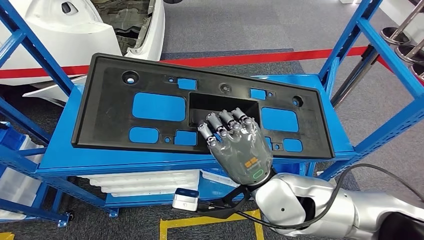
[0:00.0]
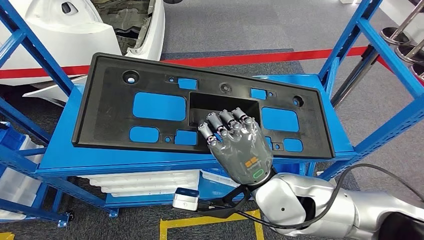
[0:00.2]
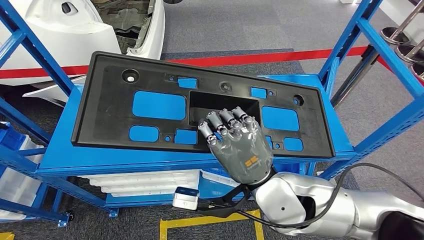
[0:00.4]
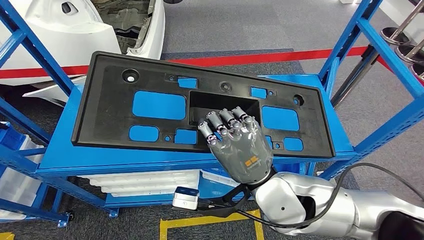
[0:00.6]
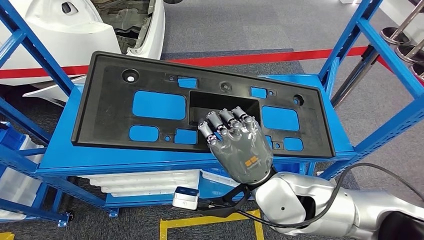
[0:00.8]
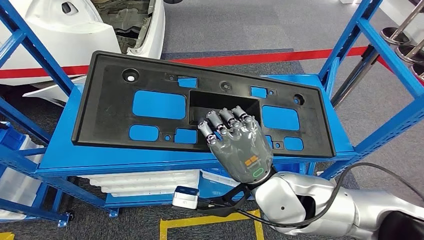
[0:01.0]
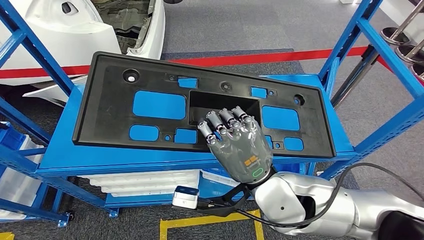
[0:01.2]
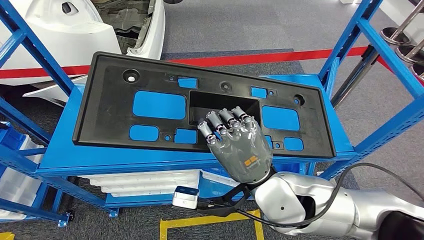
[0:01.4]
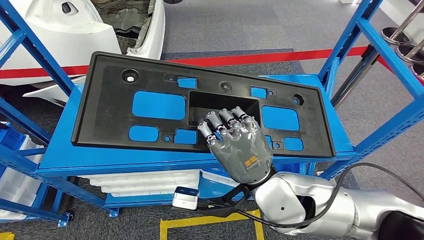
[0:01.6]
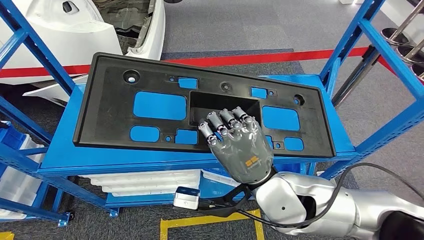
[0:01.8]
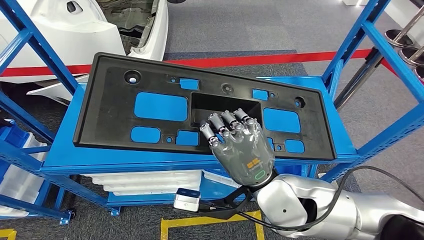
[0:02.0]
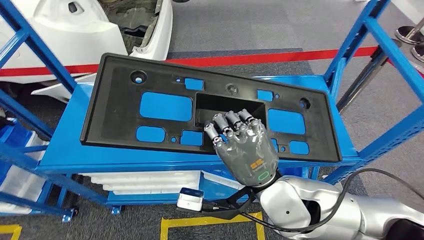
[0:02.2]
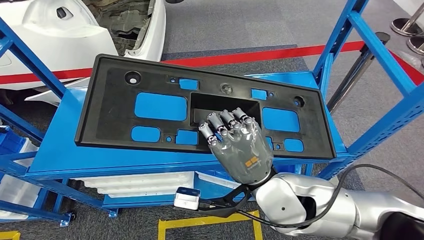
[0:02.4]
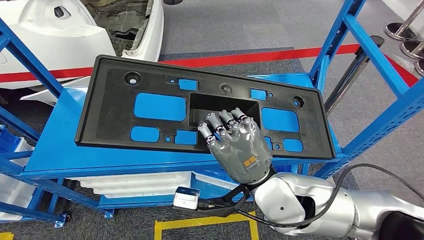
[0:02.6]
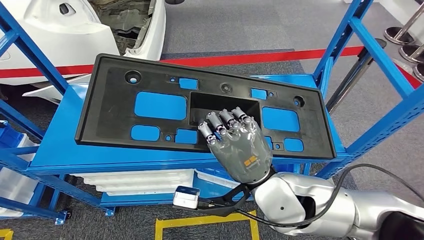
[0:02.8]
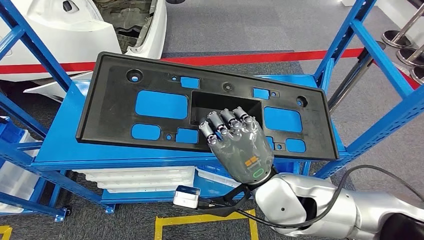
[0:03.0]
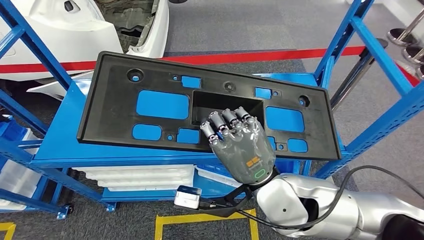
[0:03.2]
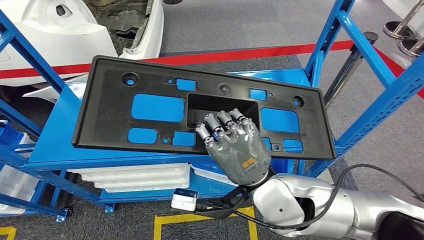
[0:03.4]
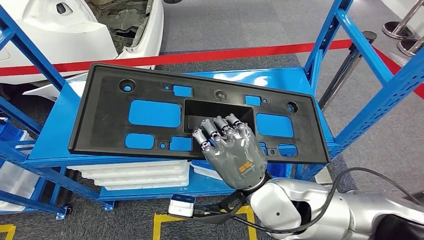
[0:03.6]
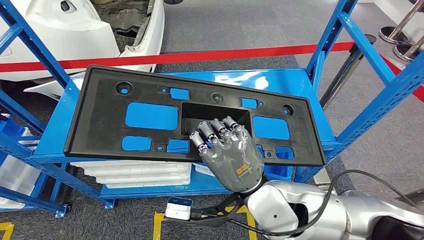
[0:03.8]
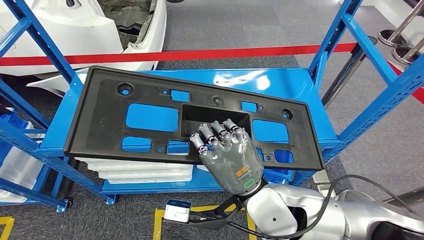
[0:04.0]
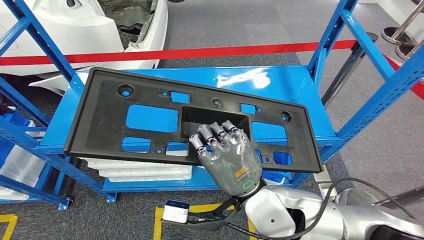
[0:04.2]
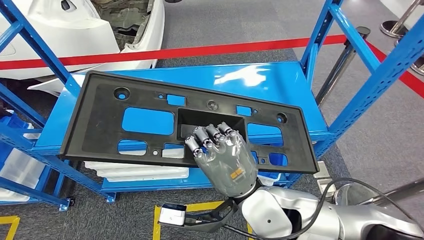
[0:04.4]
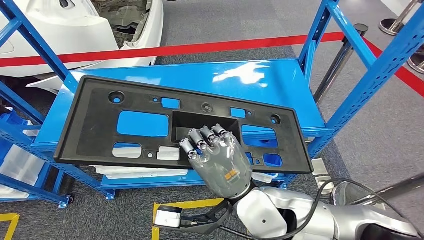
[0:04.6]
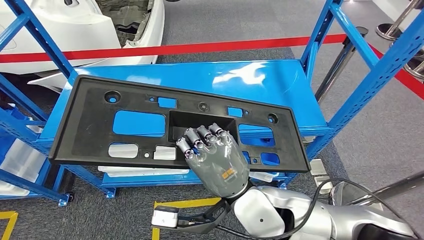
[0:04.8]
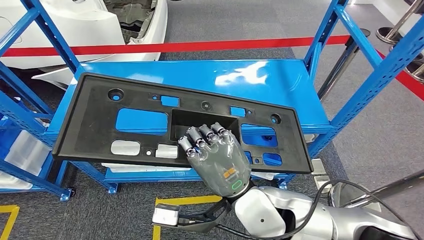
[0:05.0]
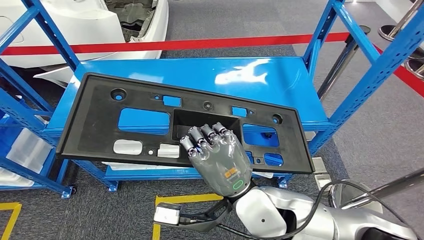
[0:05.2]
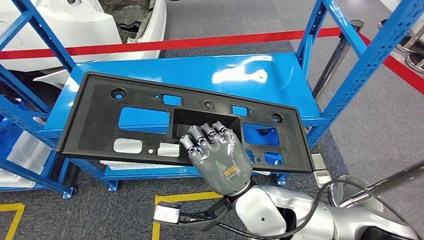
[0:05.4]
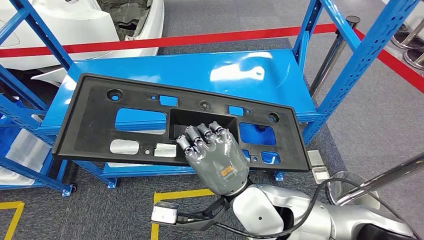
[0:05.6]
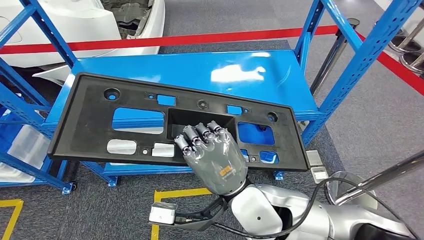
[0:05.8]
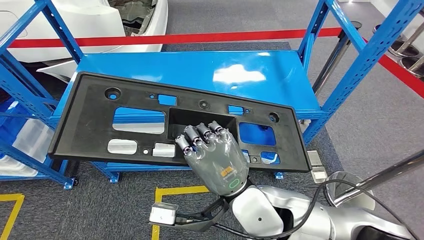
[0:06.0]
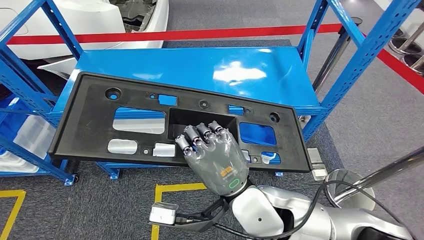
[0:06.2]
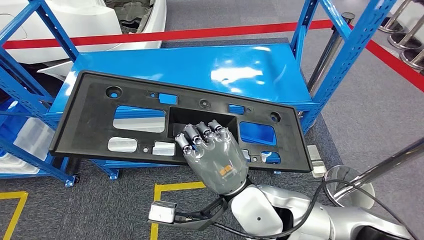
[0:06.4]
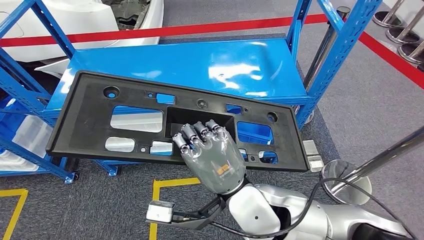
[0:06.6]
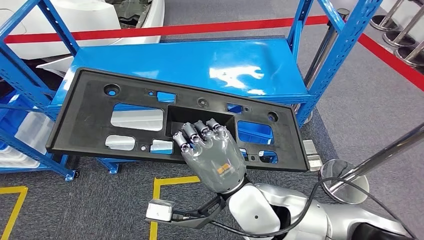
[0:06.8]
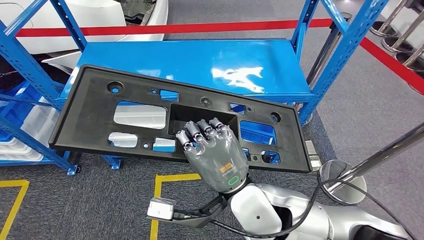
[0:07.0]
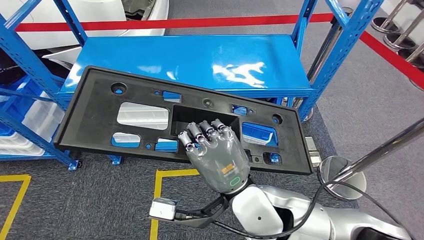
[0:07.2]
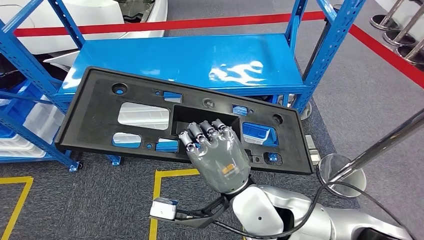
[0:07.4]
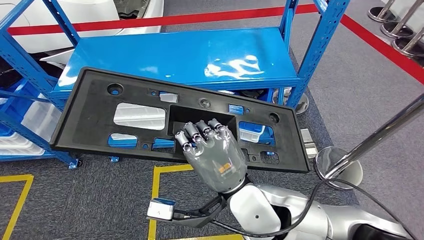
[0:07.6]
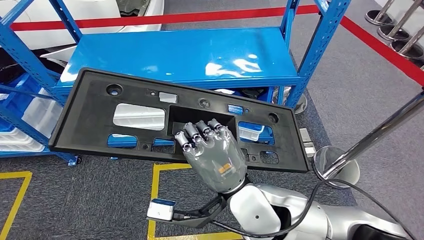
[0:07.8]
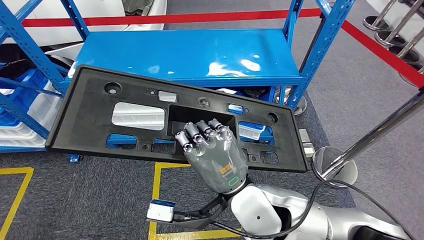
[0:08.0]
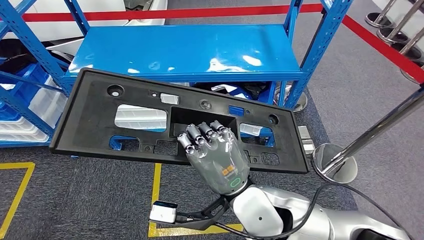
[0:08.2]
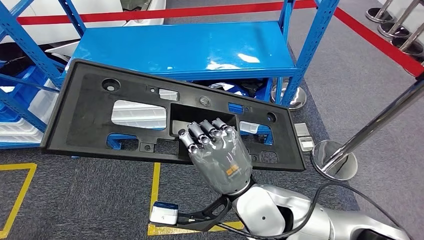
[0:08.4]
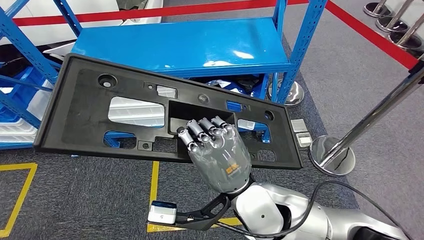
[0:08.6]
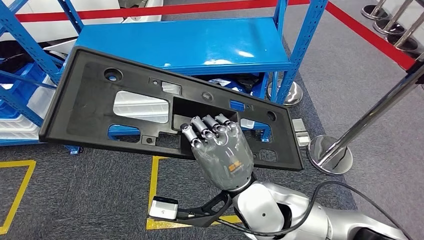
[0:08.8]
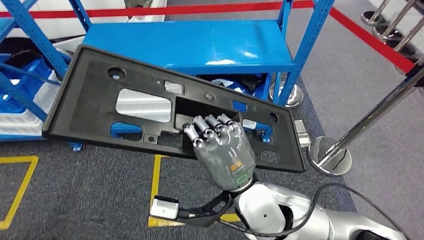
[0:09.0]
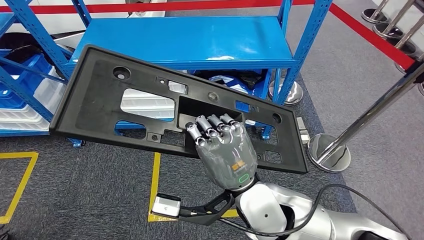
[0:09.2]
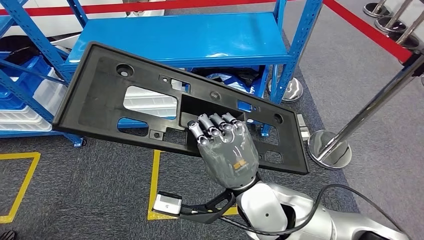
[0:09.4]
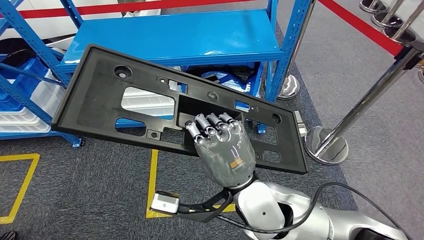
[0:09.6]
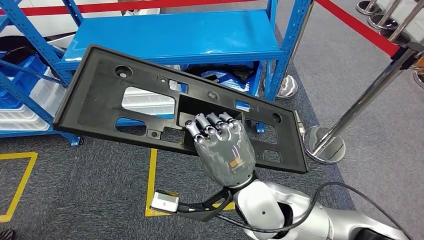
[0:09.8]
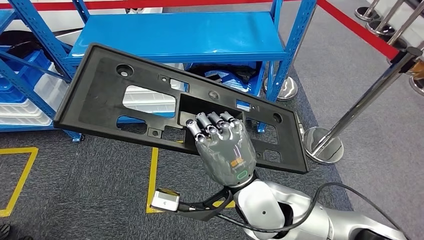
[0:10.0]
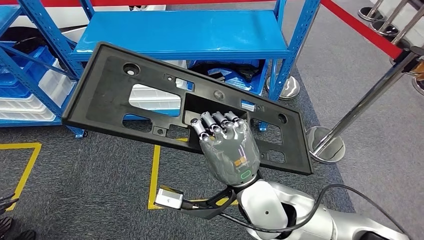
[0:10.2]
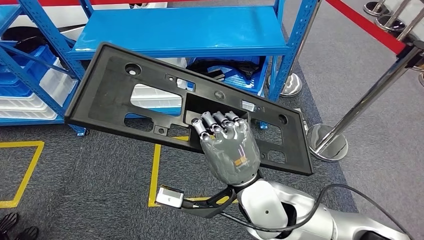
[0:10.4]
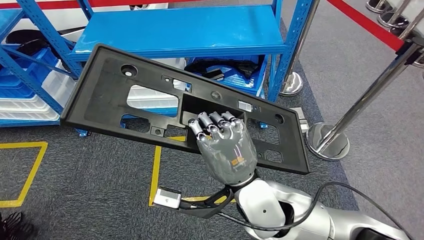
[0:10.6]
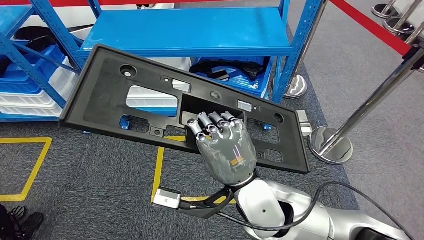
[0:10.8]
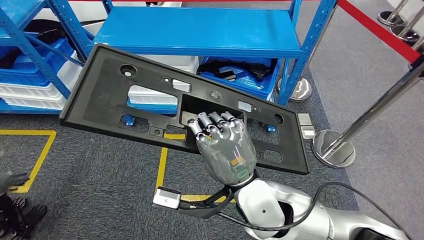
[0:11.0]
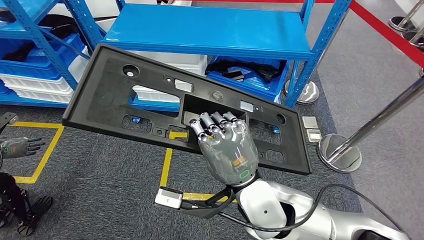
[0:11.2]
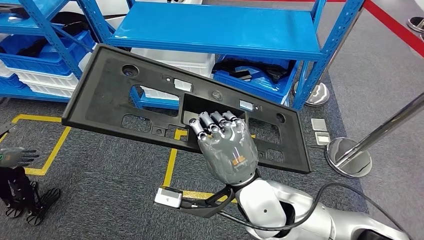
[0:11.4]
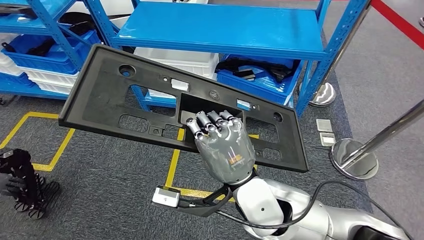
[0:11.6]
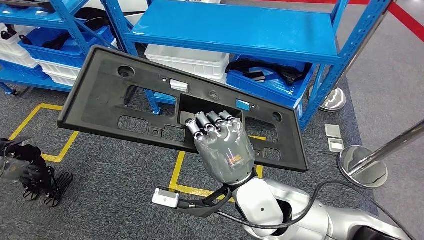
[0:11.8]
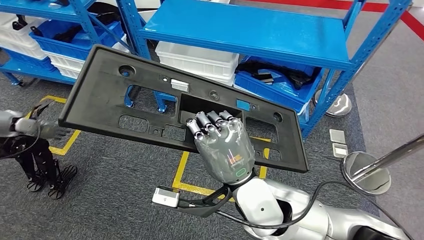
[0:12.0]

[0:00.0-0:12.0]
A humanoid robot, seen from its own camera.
0:00.0 to 0:01.6: The two hands keep their place.

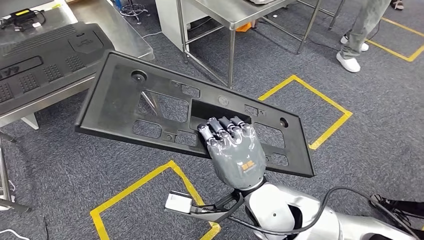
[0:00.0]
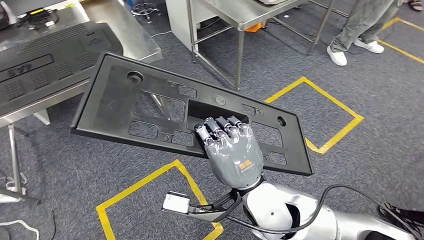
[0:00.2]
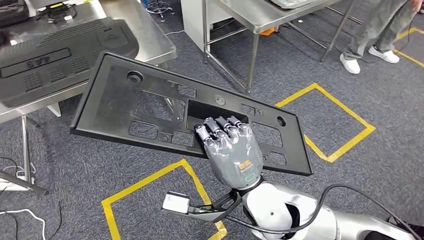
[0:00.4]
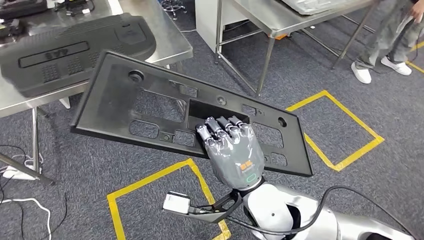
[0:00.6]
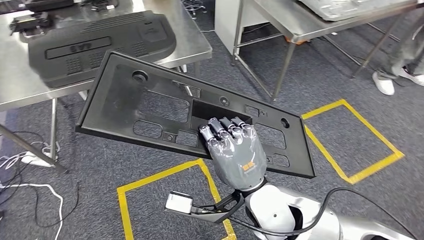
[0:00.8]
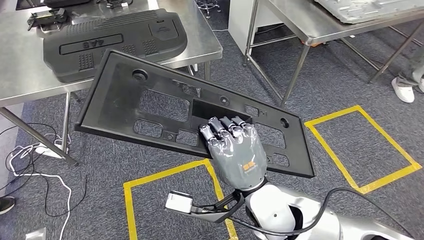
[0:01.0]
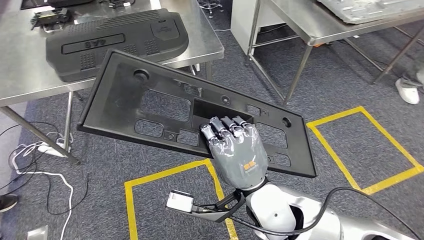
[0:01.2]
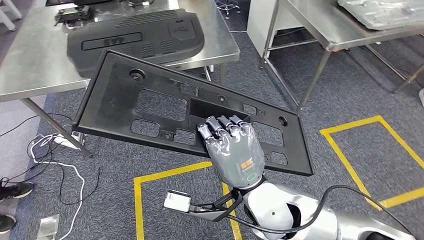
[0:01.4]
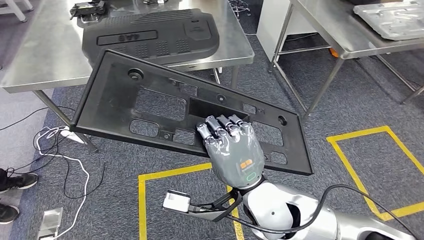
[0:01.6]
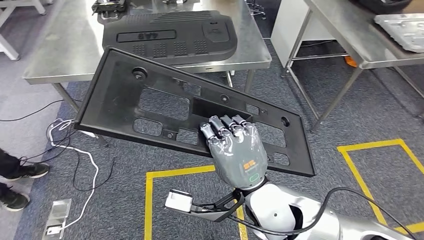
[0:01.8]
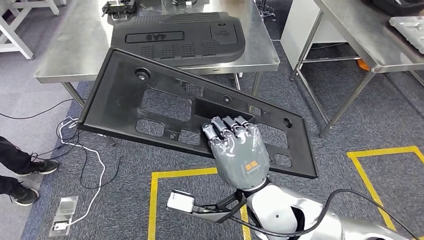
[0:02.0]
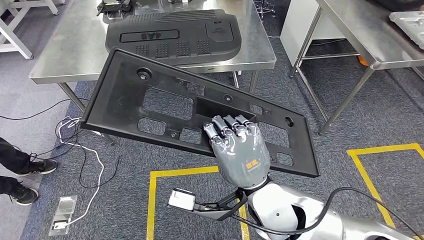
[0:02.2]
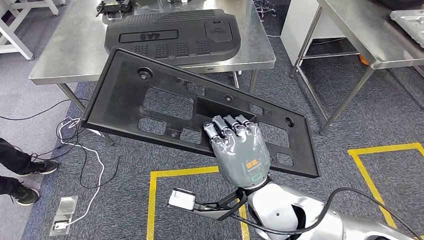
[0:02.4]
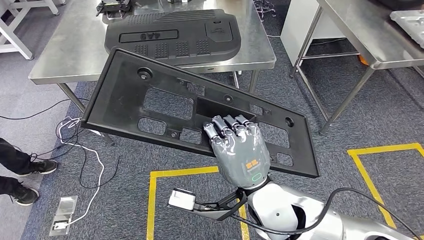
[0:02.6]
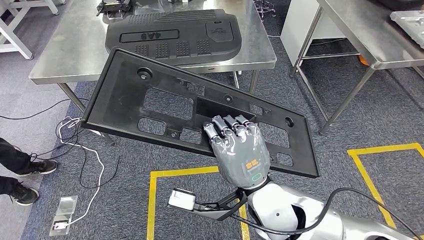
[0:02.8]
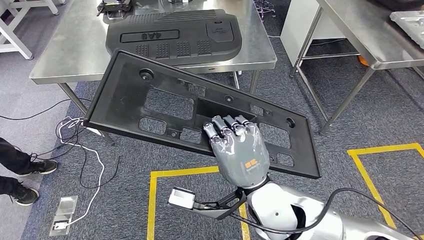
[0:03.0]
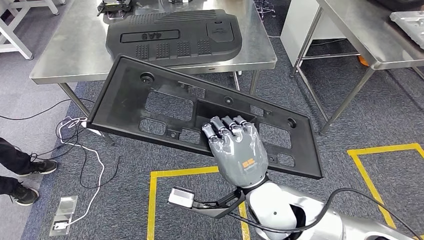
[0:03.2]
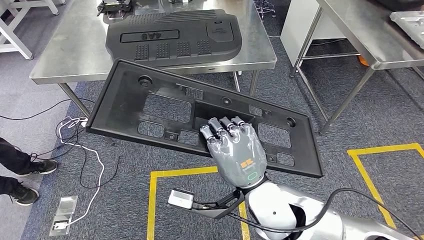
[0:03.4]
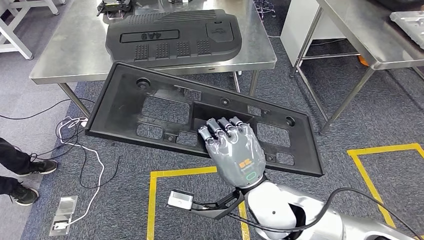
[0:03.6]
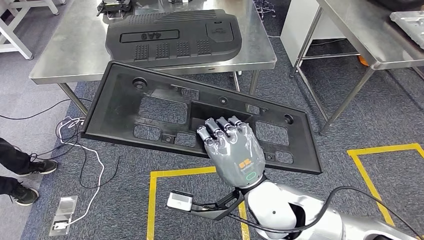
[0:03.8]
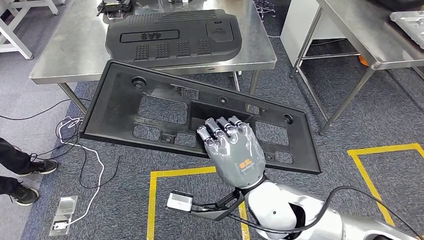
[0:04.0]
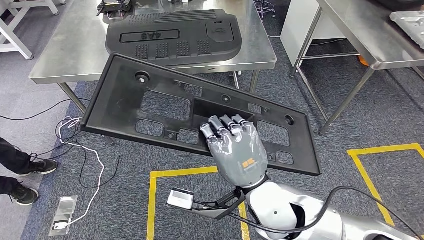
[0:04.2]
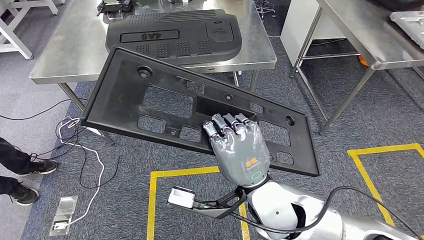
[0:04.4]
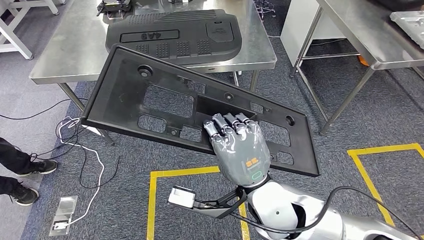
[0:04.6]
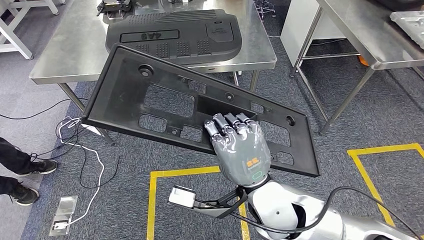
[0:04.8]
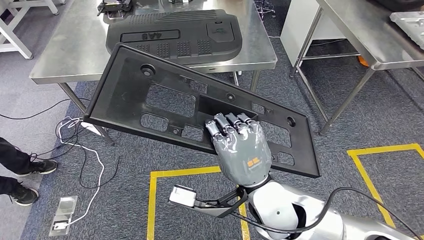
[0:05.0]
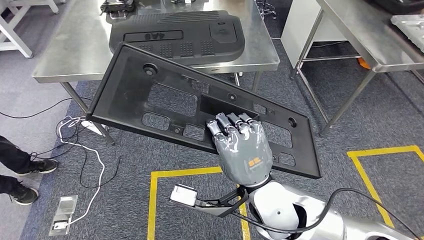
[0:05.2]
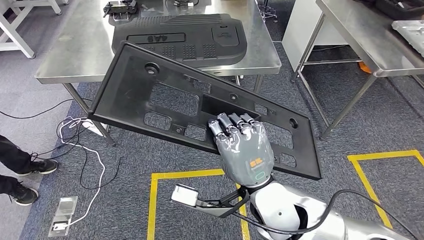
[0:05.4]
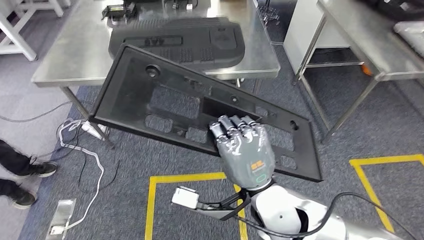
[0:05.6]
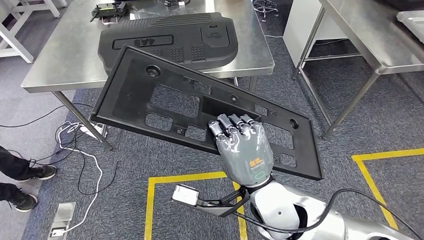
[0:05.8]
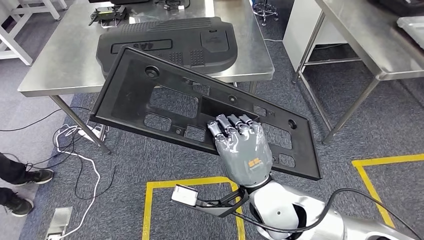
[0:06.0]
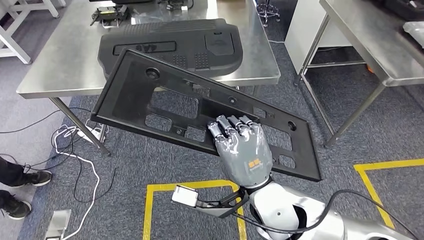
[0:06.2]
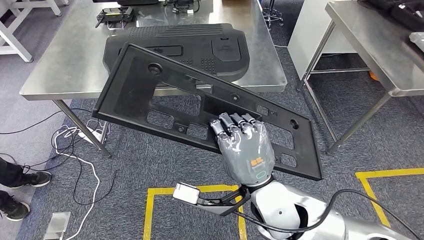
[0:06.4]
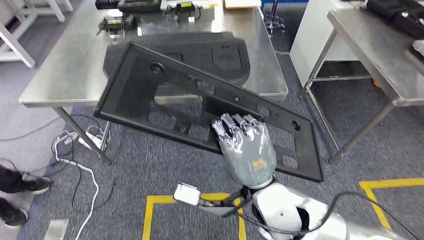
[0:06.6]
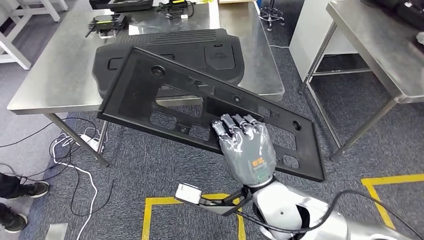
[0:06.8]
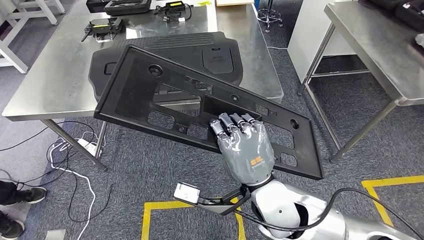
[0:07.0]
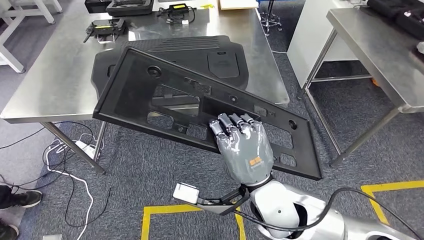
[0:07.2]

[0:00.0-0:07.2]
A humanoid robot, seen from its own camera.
0:02.8 to 0:04.4: The hands stay close to where they were, moving slightly.
